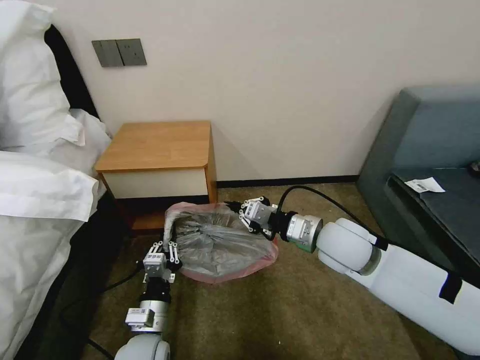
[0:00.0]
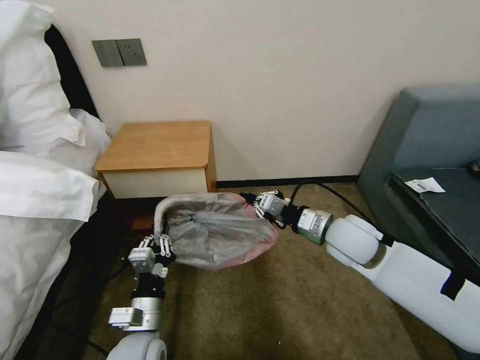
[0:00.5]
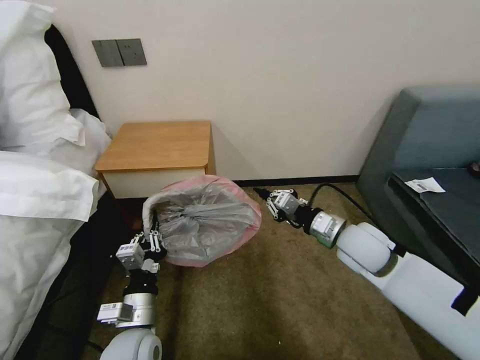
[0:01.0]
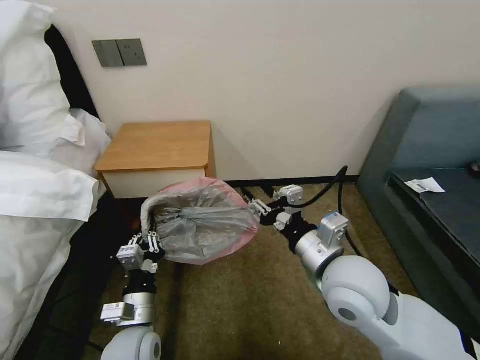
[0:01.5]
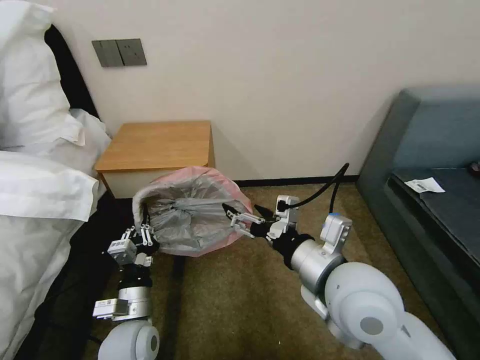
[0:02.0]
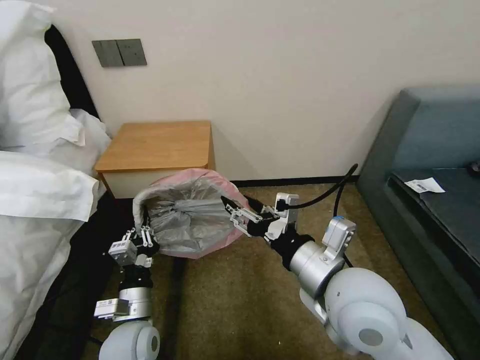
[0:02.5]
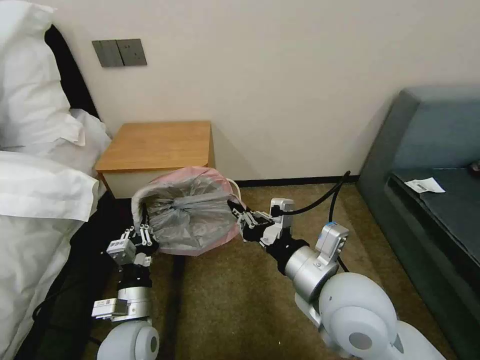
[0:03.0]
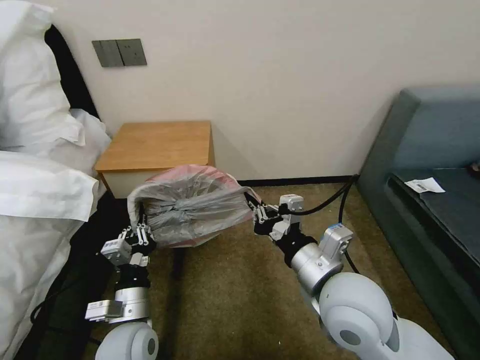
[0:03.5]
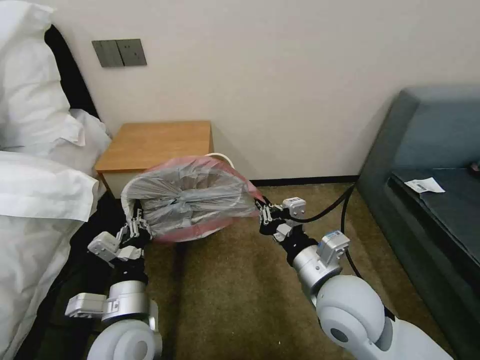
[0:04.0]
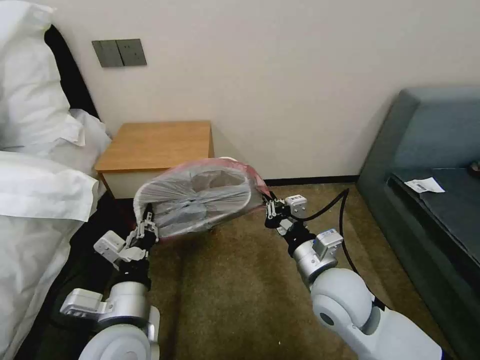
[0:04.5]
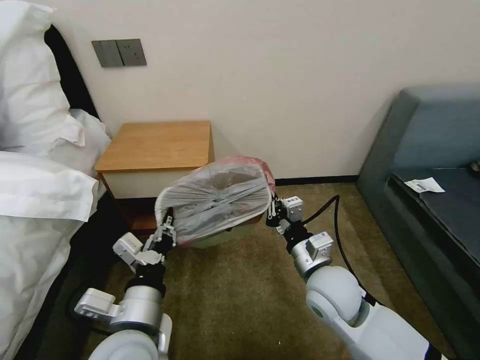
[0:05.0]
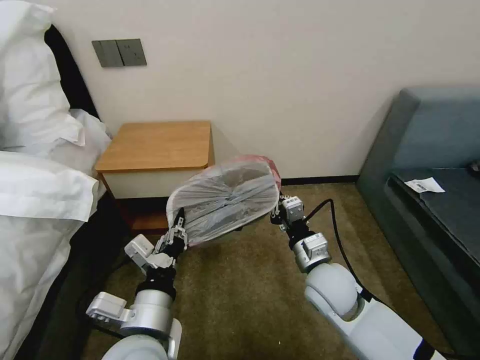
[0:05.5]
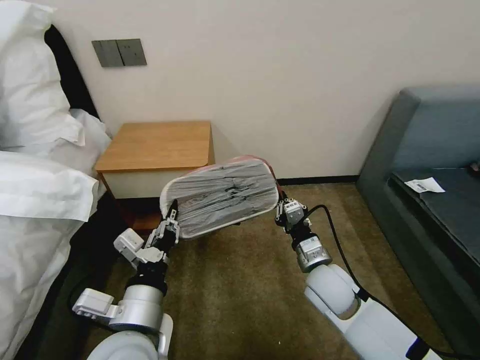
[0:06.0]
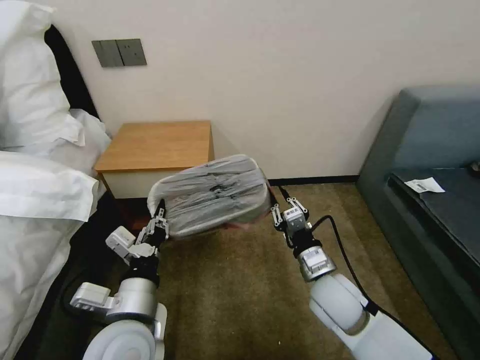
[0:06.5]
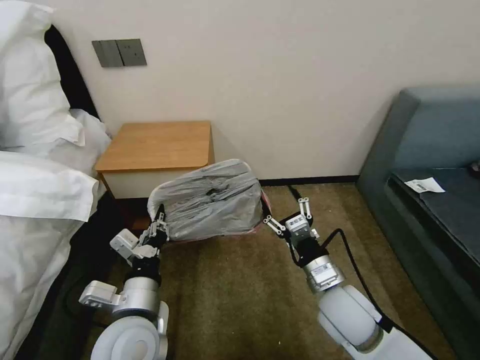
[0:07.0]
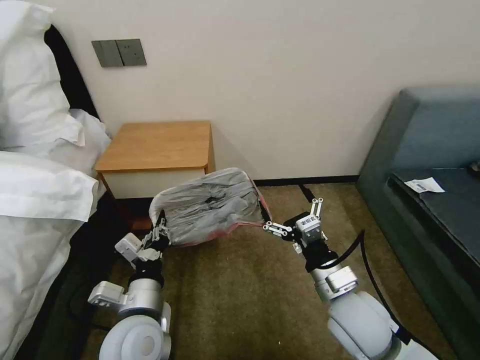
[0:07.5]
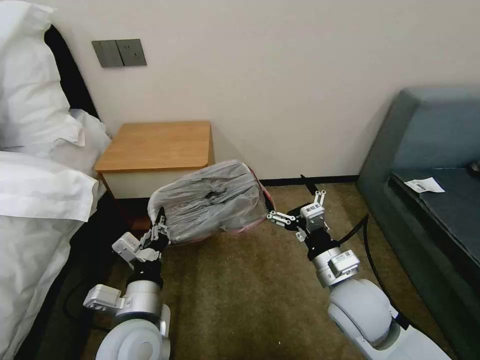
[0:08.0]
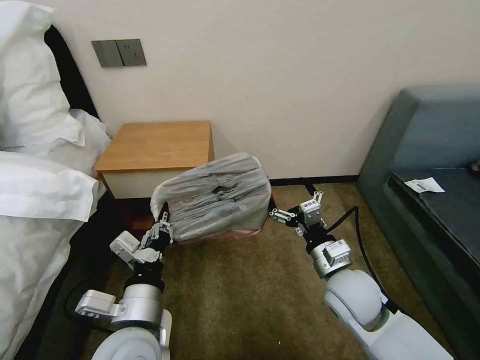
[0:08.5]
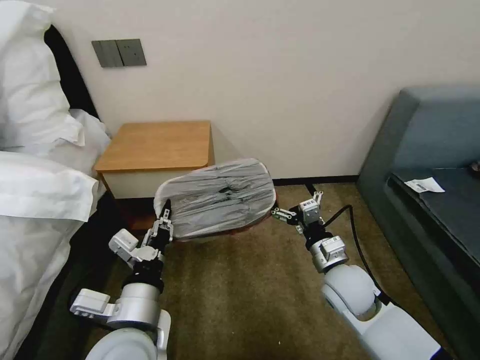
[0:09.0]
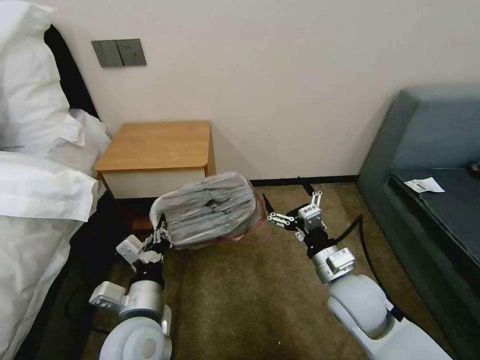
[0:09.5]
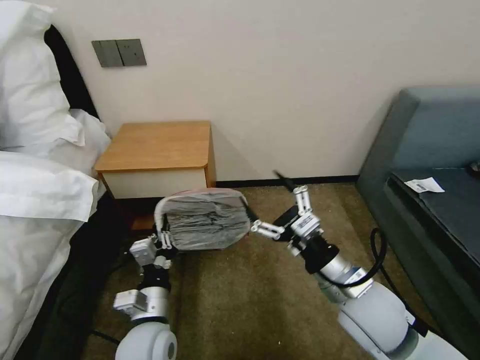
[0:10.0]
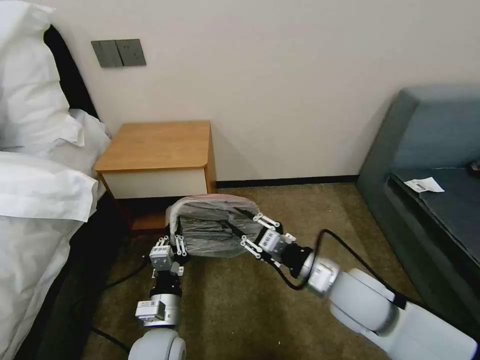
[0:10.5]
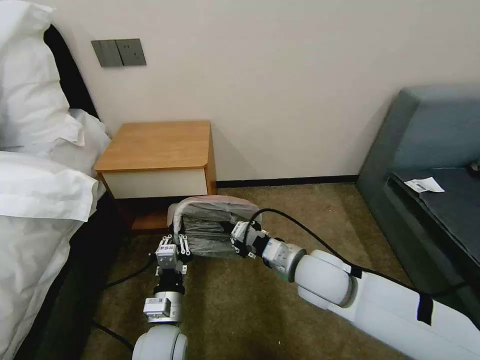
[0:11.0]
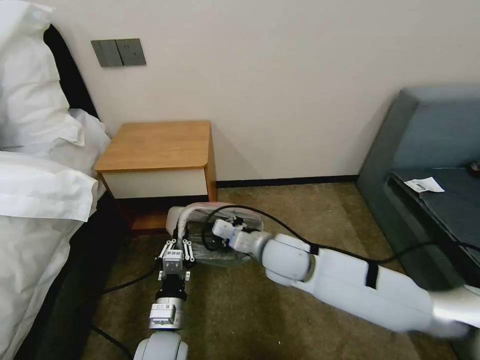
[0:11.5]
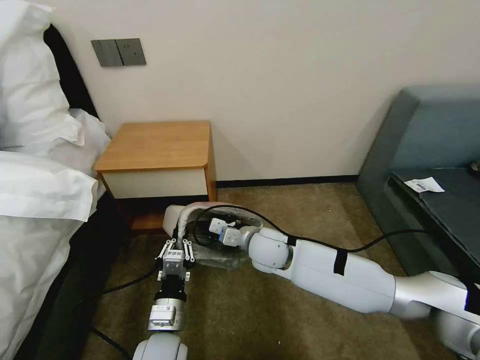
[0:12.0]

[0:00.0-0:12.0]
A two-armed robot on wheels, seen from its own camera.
Task of the whole recording: Pick up the garbage bag from the table and place it over the trash can.
0:00.0 to 0:02.0: The right gripper is displaced backward and upward by about 15 cm, and opens.
0:02.0 to 0:04.0: The right gripper travels downward by about 5 cm, and closes up; the left gripper shifts about 5 cm upward.
0:04.0 to 0:06.0: The left gripper moves upward, roughly 5 cm; the right gripper shifts some 15 cm downward and forward.
0:06.0 to 0:08.0: The left gripper moves downward, approximately 5 cm, while the right gripper shifts about 10 cm upward and backward, and opens up.
0:08.0 to 0:10.0: The left gripper heads downward, covering approximately 5 cm.
0:10.0 to 0:12.0: The right gripper heads forward, to the left and downward, covering approximately 20 cm, and closes its fingers.

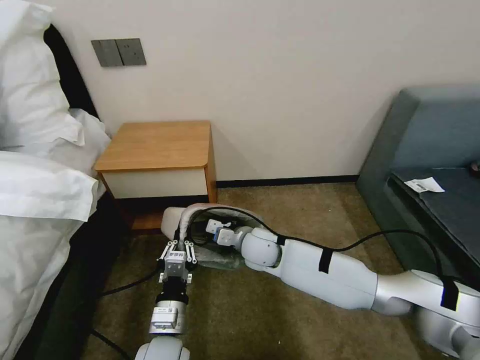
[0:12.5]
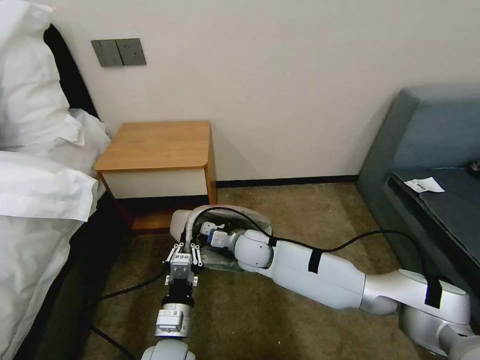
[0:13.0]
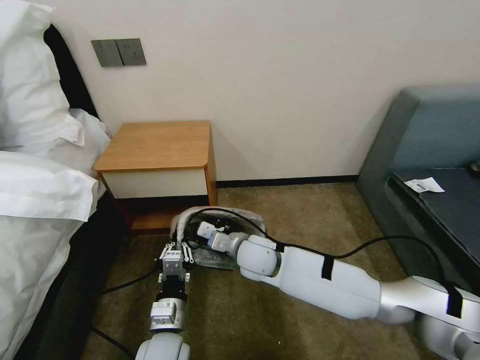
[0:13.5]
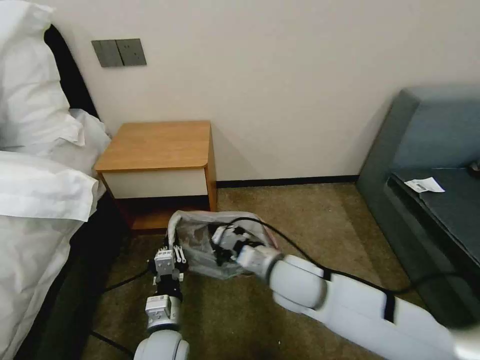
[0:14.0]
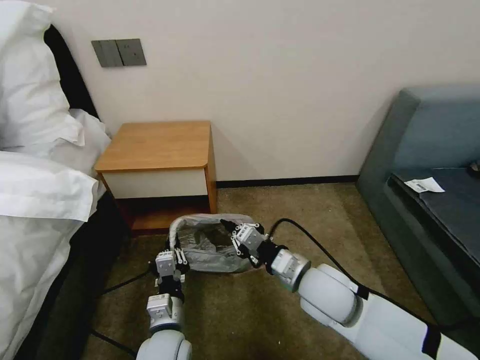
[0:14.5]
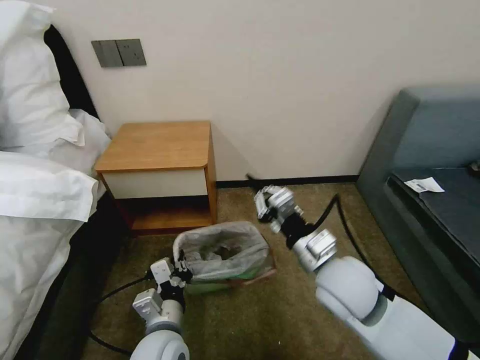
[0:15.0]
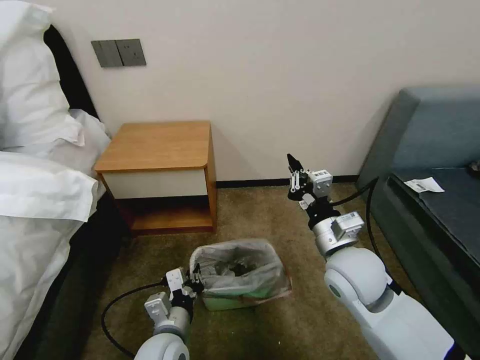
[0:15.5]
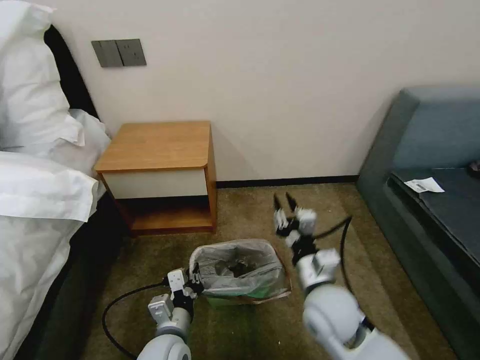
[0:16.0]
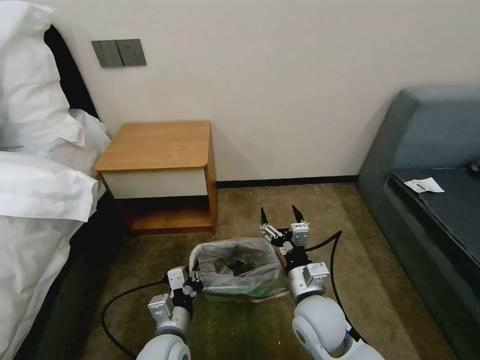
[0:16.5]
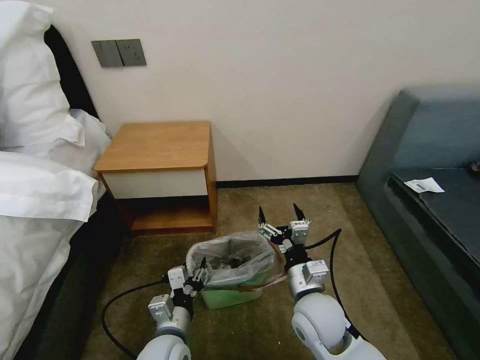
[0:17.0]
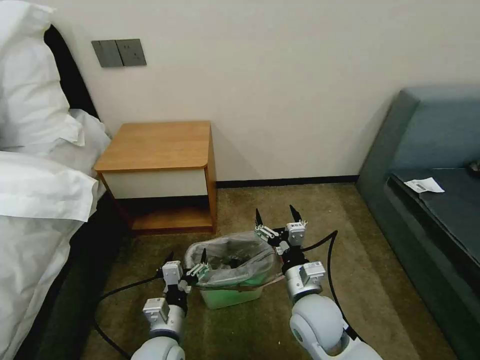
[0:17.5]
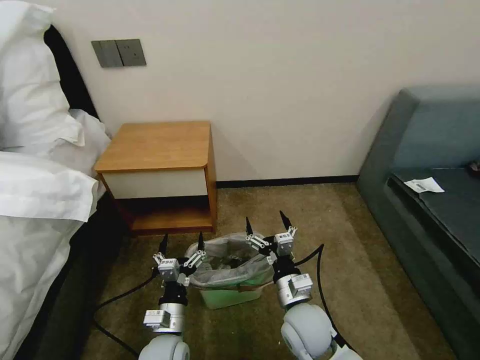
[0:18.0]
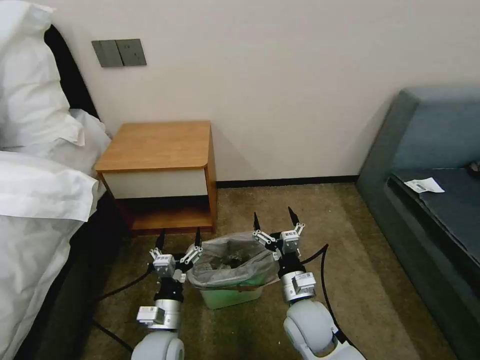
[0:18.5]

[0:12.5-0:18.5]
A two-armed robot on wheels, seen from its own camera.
Task of the whole recording: Pick up the garbage bag from the table and place it over the trash can.
0:12.5 to 0:14.5: The right gripper shifts approximately 20 cm backward, to the right and upward.
0:14.5 to 0:16.5: The right gripper moves downward, roughly 5 cm, and opens up.
0:16.5 to 0:18.5: The left gripper opens up.

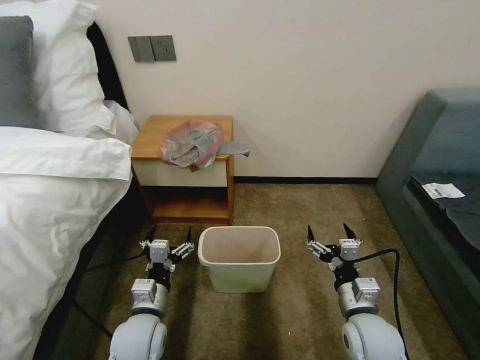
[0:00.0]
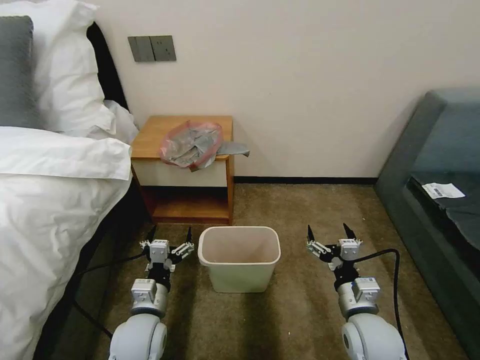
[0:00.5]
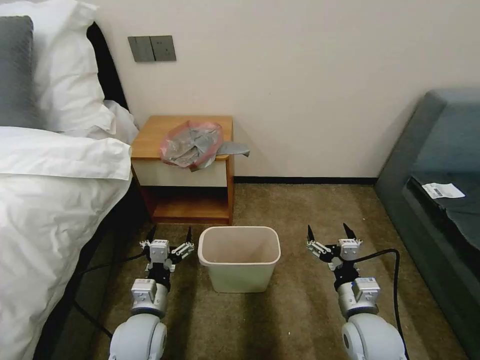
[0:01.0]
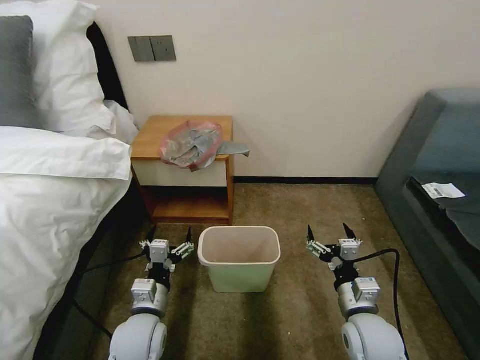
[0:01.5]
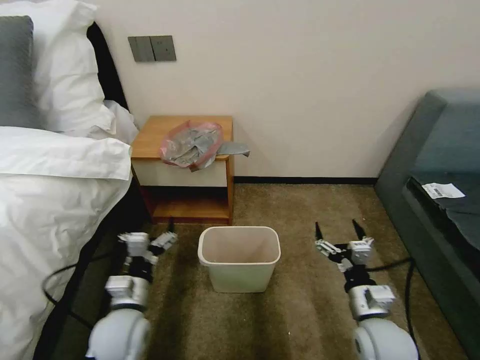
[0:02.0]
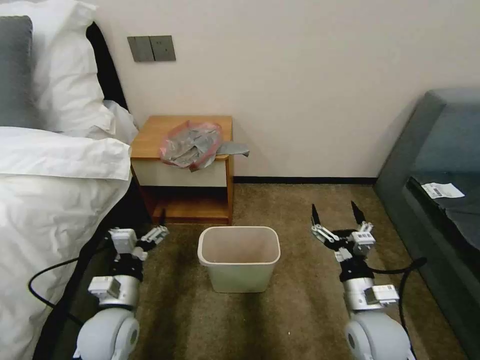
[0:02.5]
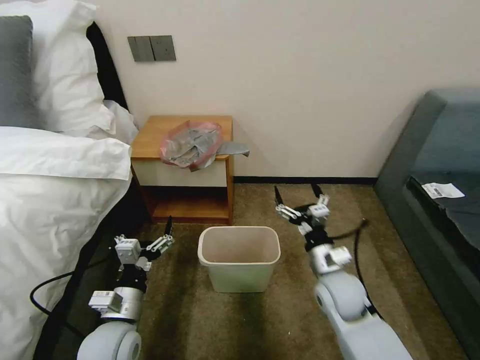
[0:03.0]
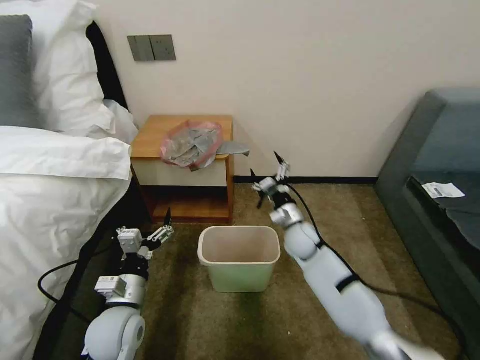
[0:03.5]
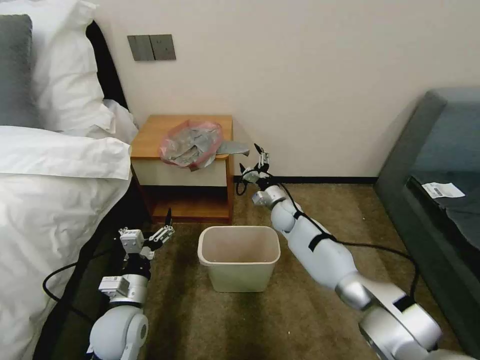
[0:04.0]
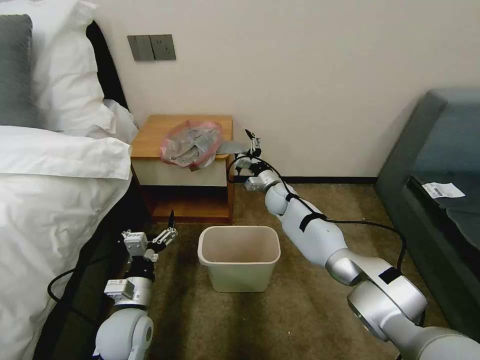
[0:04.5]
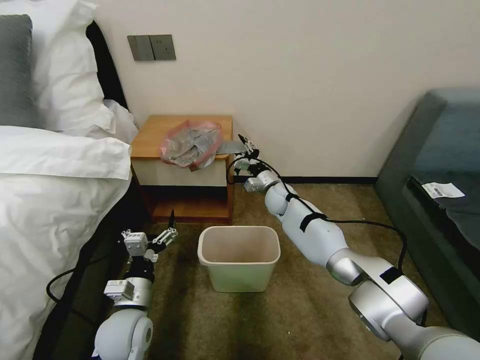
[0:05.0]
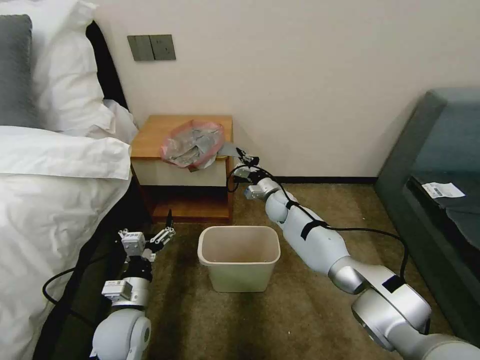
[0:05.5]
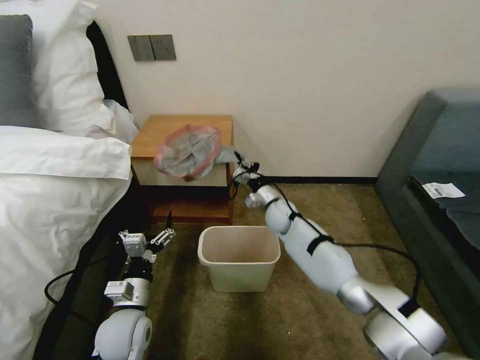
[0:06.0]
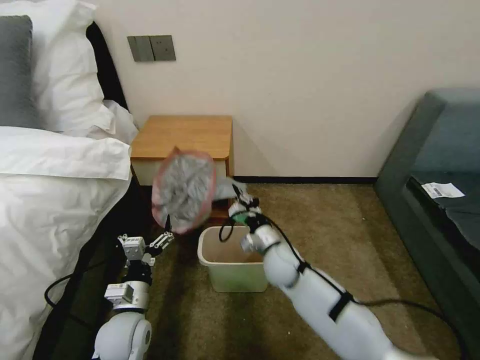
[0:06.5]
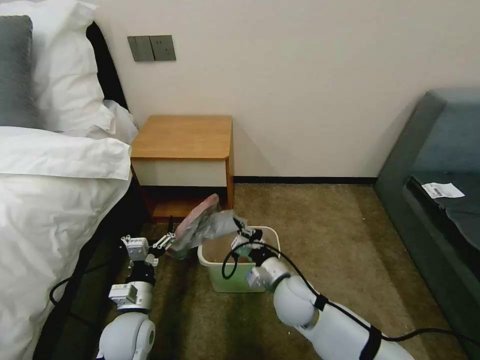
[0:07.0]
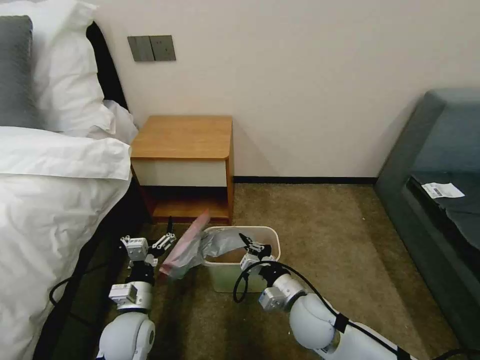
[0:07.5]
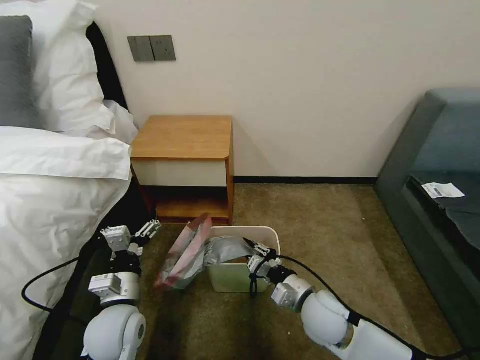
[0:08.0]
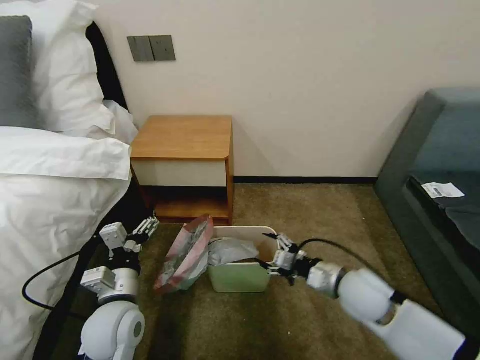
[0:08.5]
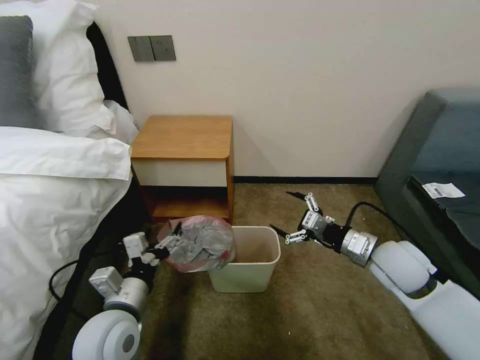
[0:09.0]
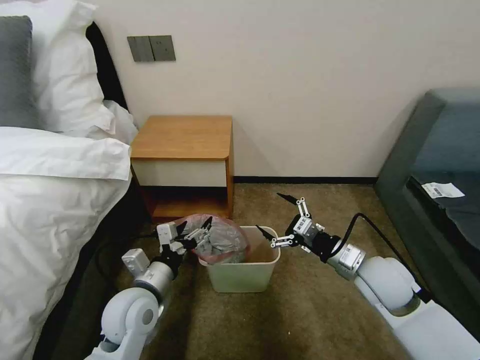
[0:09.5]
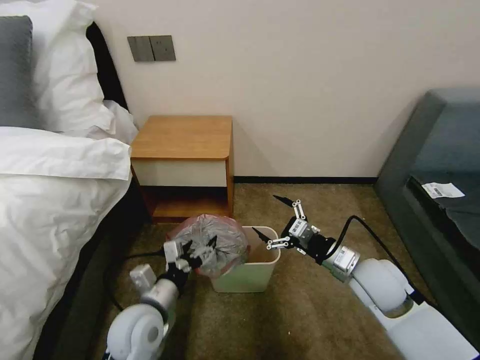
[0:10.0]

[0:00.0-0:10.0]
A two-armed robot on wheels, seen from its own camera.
Task of the whole recording: Pick up the garbage bag from the table and place it over the trash can.
0:02.0 to 0:04.0: The right gripper shifts about 35 cm forward.
0:04.0 to 0:06.0: The right gripper closes.
0:06.0 to 0:08.0: The right gripper goes some 25 cm backward.
0:08.0 to 0:10.0: The right gripper heads to the right and upward, covering roughly 15 cm, and opens up.
